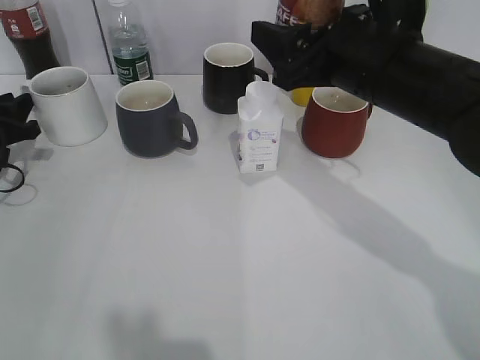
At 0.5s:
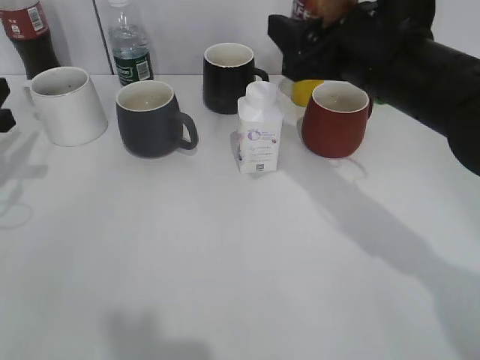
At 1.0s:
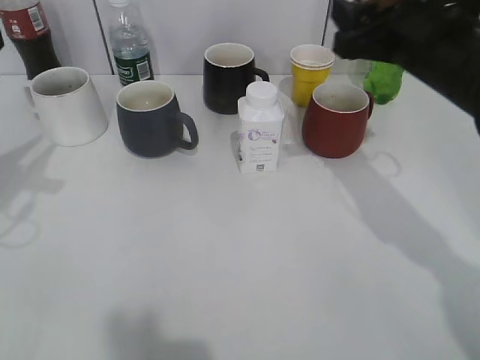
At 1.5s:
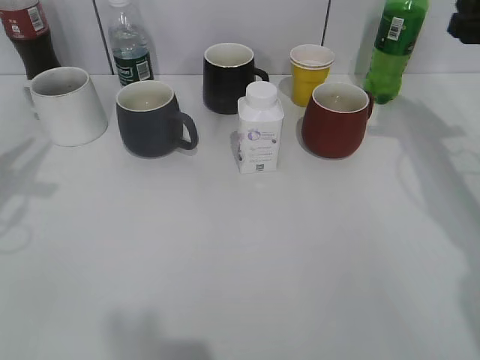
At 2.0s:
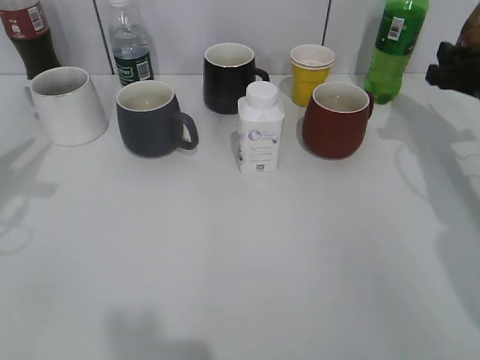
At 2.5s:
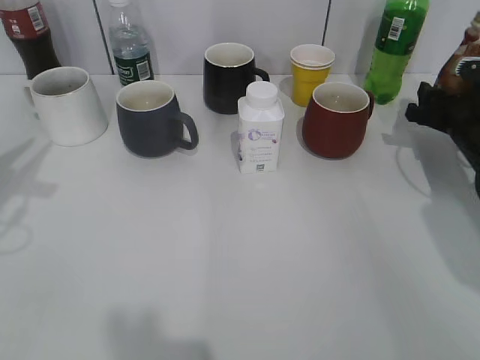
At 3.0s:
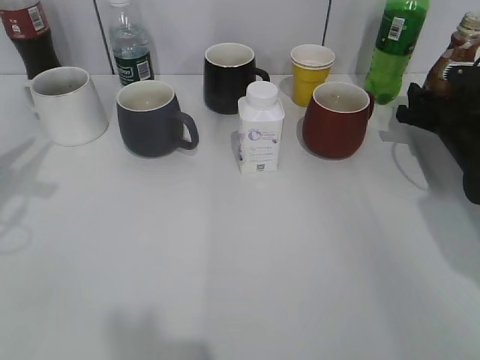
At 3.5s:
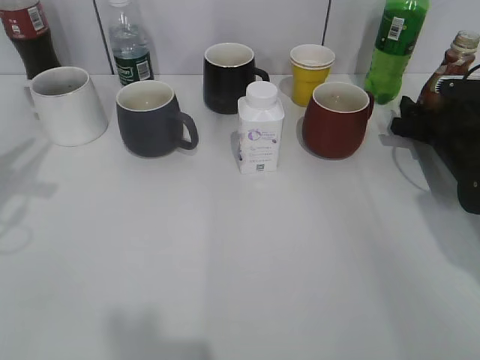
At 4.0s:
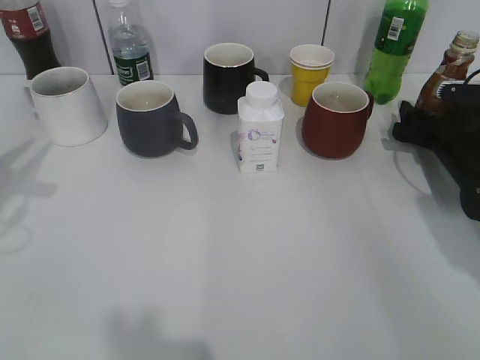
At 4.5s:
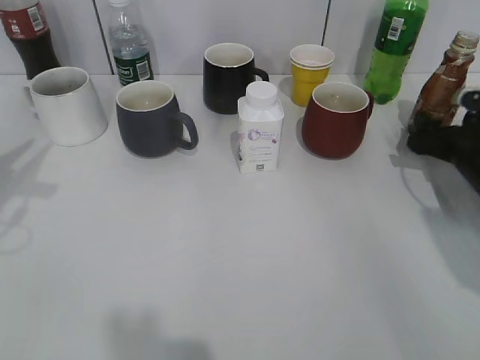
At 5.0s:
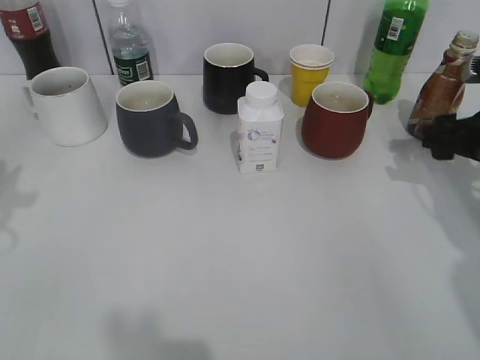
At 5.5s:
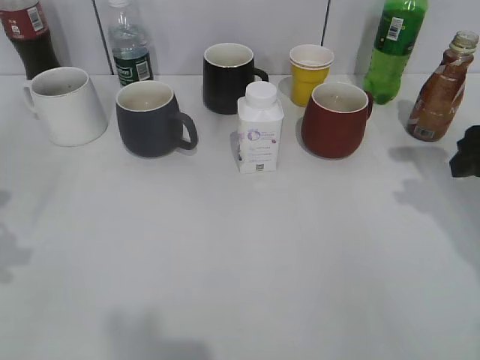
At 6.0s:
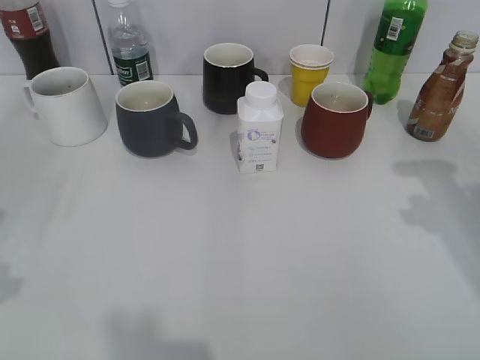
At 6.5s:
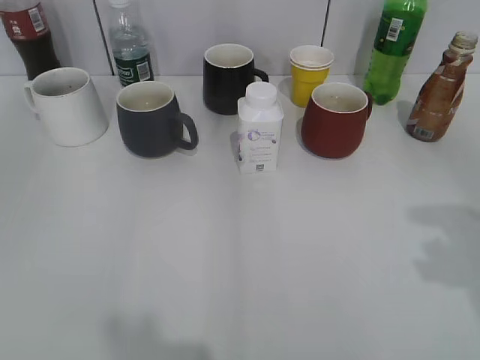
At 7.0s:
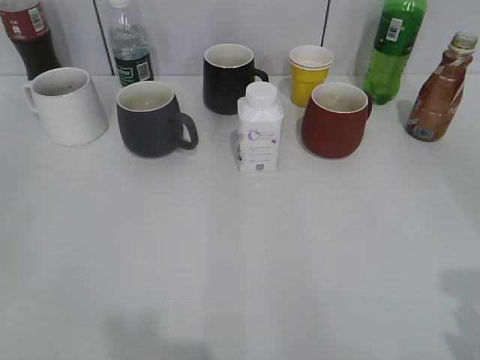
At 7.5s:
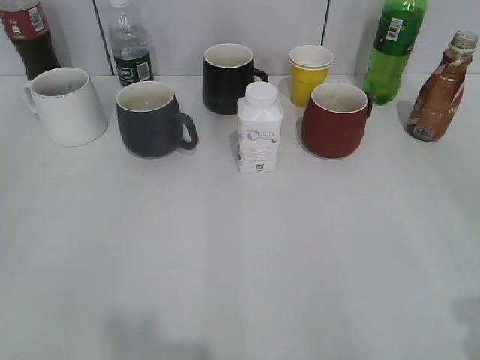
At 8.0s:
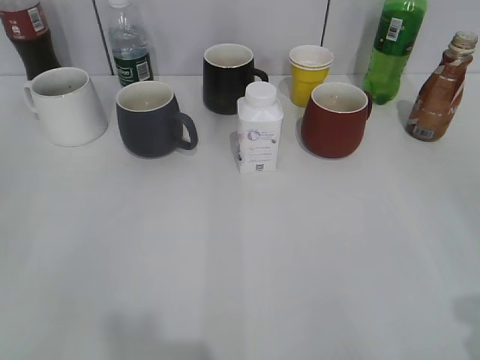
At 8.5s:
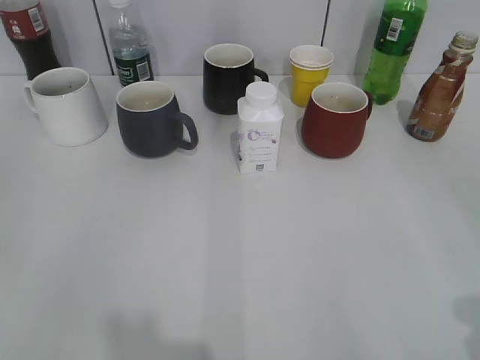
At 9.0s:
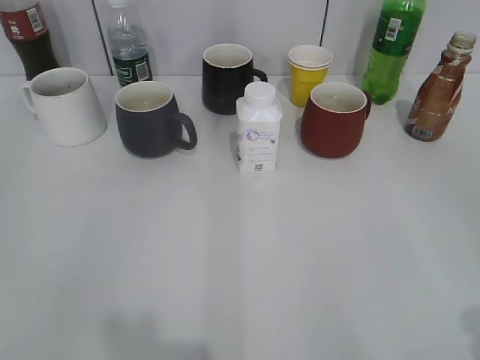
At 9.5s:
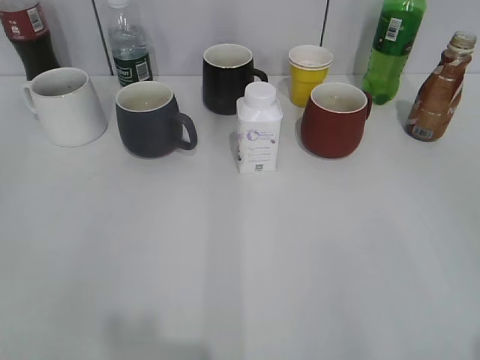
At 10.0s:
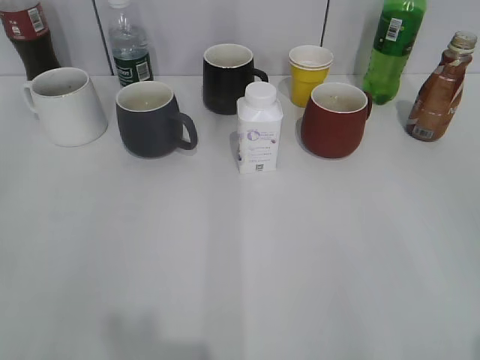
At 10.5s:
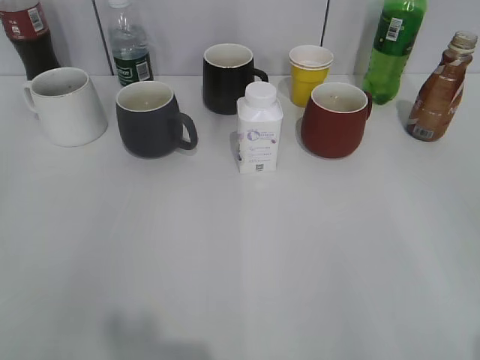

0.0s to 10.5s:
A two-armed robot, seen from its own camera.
Step, 0.5s to 4.5s: Place the coffee bottle on the table with right gripper.
0.0s to 2.0s: The right gripper goes about 20 cm to the right and forward. Meanwhile the left gripper heads upward and backward, covering approximately 20 cm.
2.0s to 4.0s: The right gripper shifts about 10 cm downward, and opens its fingers.
4.0s to 6.5s: The right gripper moves backward and upward, some 35 cm, and closes its fingers.
